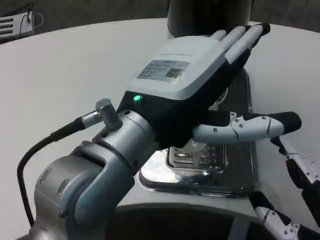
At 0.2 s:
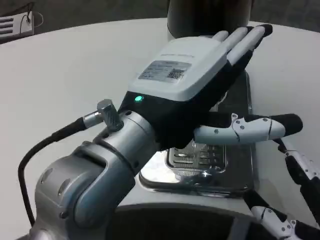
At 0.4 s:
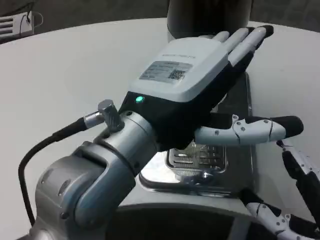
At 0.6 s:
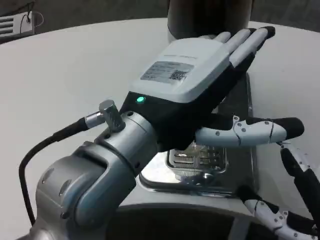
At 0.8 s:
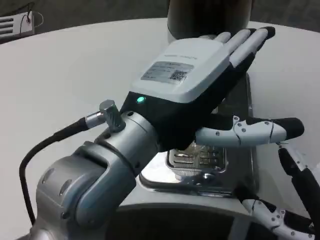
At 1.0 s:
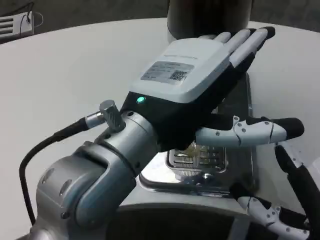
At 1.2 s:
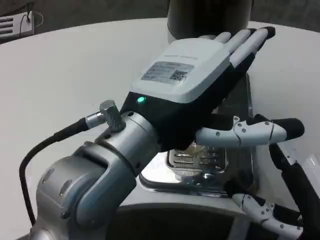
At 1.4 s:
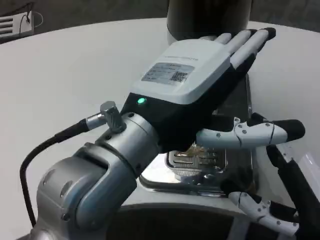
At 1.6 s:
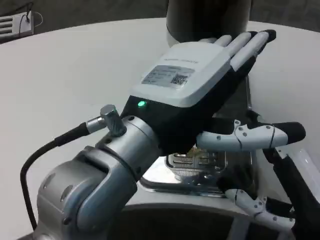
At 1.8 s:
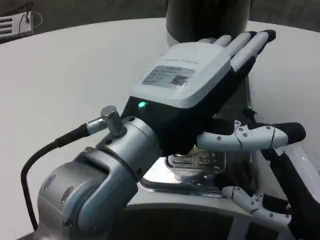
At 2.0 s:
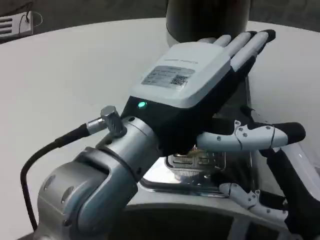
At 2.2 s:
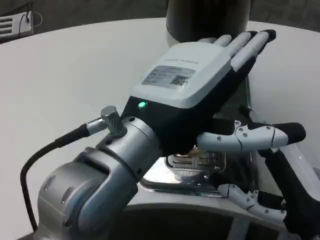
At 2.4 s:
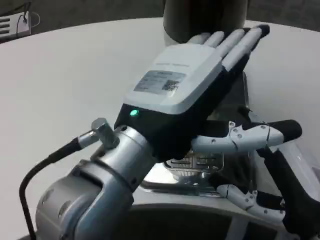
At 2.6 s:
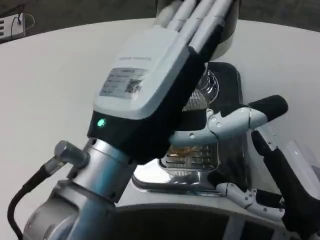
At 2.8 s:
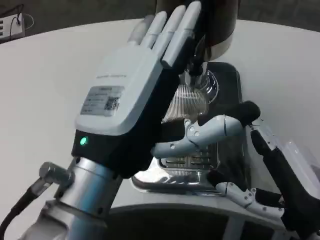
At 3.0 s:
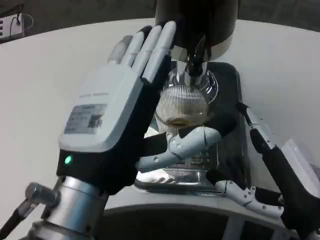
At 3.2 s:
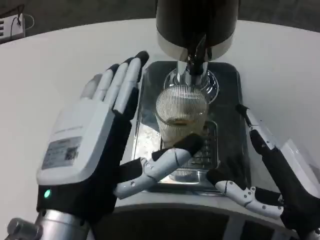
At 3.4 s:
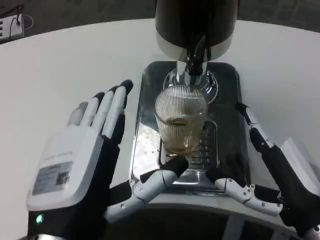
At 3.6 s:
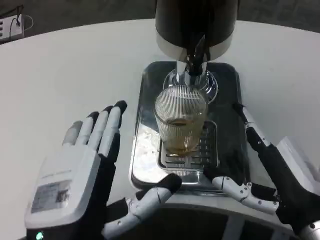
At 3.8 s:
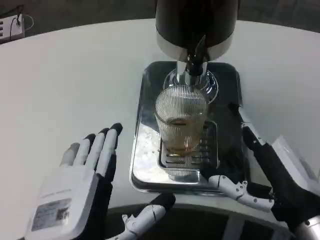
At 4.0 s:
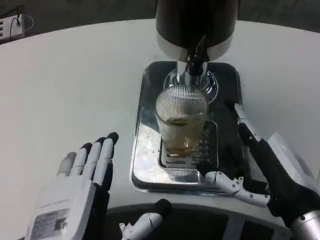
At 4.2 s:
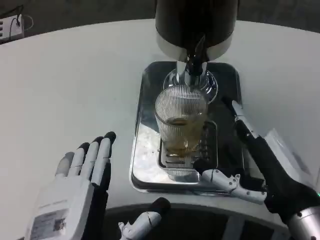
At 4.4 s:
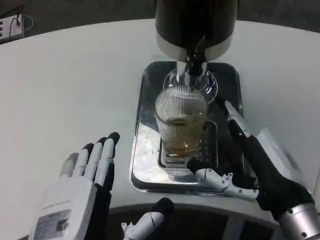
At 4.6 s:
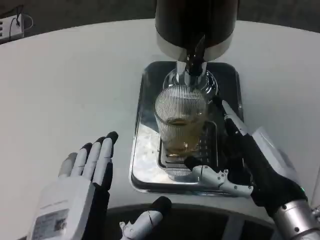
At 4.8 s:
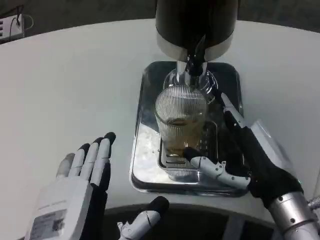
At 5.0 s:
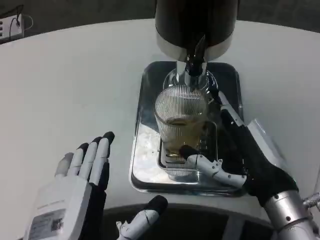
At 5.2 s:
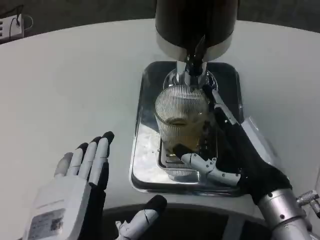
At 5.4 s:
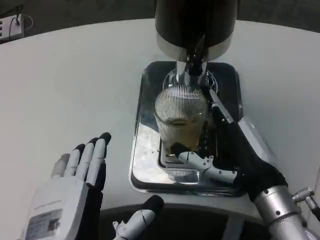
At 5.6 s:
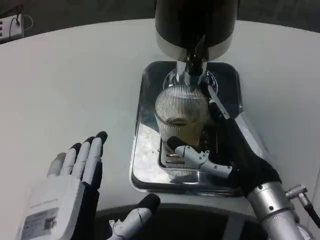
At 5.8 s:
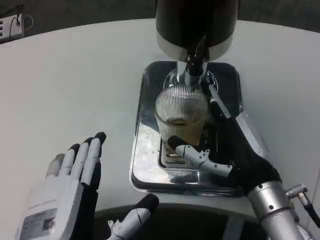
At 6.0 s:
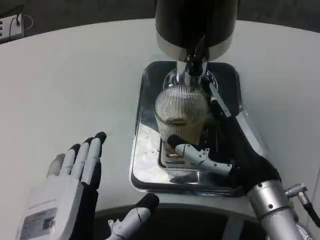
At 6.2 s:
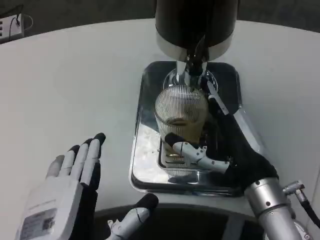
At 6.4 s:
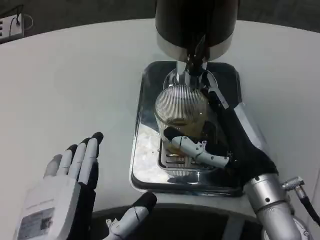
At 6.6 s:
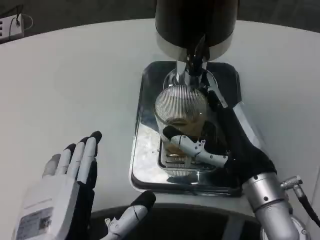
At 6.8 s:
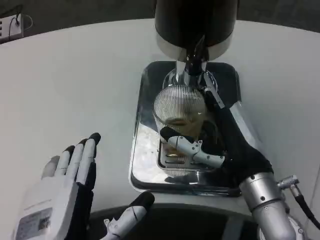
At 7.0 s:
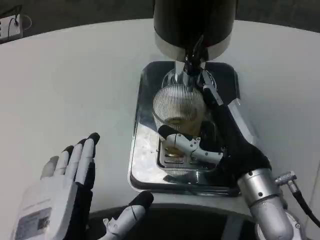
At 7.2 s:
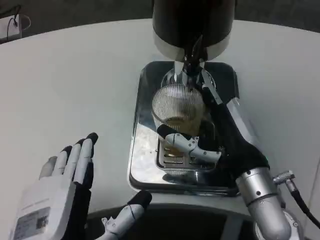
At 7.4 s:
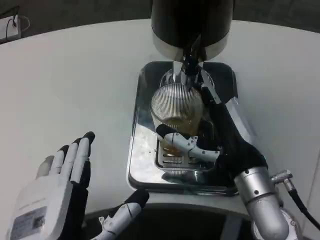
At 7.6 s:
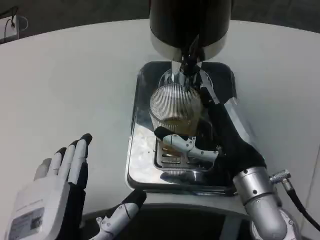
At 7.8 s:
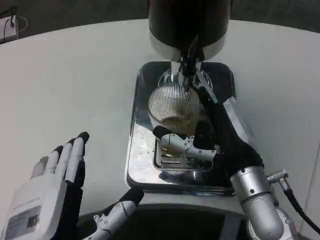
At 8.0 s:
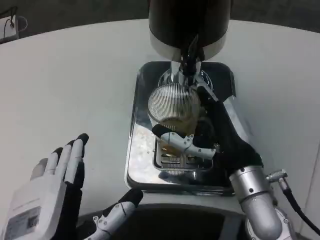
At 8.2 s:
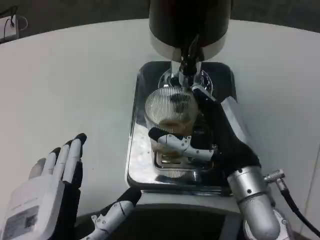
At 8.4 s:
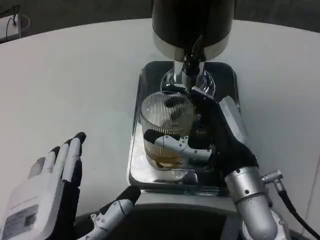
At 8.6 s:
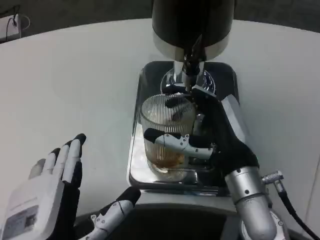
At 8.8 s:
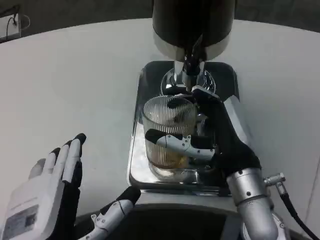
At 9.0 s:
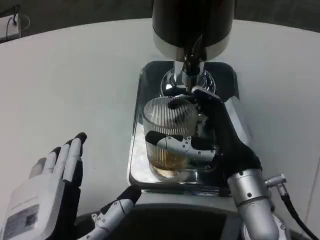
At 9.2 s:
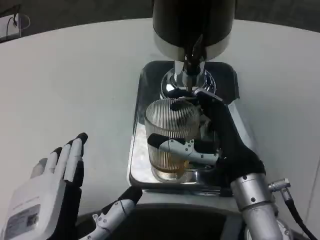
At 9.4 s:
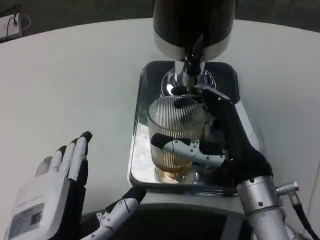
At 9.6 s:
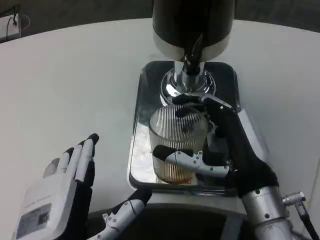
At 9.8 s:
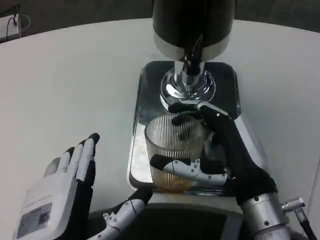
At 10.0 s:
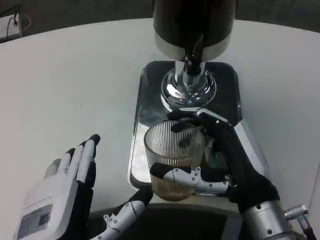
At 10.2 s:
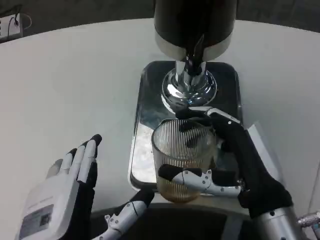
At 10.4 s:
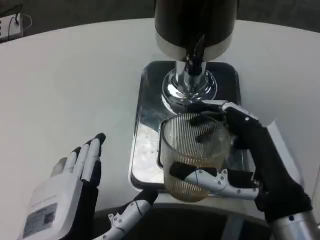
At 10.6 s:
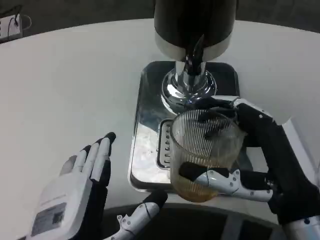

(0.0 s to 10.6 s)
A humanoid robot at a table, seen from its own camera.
Task of the whole recording: Grasp the cup under the faucet to collect the drink, then remove the cup.
0.0 s - 1.6 s: The right hand ends up some 5 cm from where it was.
1.6 s - 3.0 s: The left hand goes roughly 5 cm downward.
3.0 s - 4.6 s: The left hand shifts about 10 cm downward. The right hand changes place by roughly 5 cm.
4.6 s - 6.0 s: The hands make only small movements.
7.6 s - 9.0 s: There are only small adjustments of the hands.
9.0 s - 10.6 s: The right hand is displaced backward by about 10 cm.

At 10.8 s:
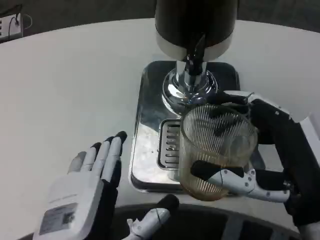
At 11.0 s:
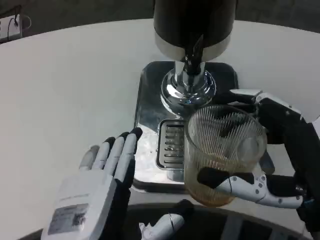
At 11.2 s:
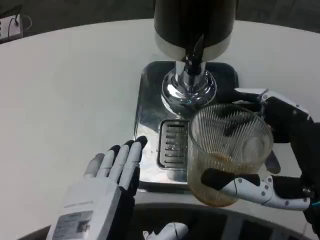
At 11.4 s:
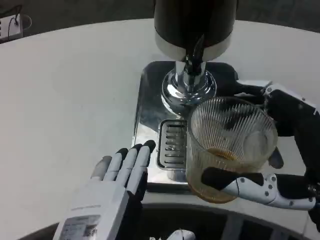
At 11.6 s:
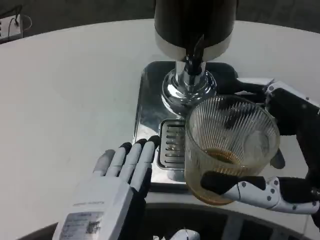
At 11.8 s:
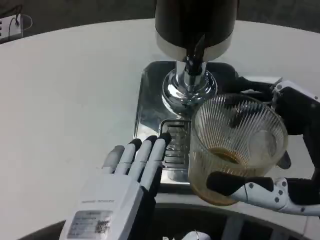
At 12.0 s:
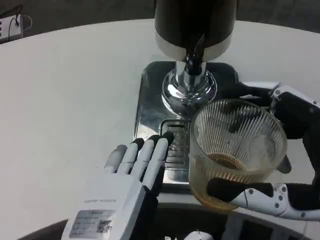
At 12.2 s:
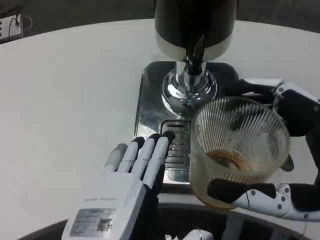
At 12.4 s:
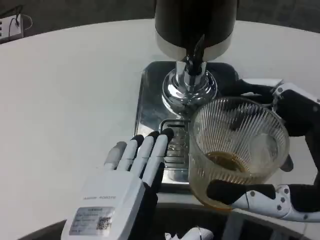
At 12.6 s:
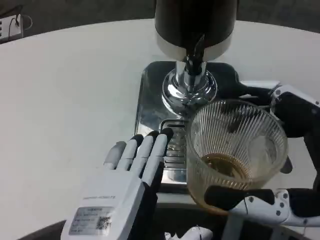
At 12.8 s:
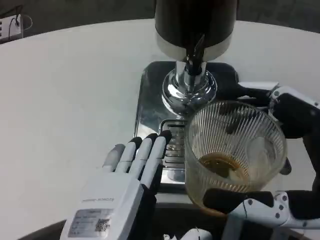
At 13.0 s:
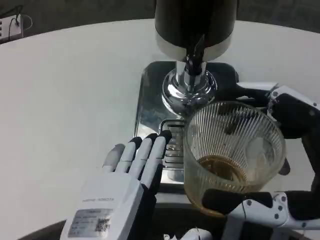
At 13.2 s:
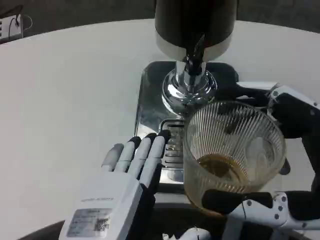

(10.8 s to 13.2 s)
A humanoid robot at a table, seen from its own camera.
Task of the whole recording: Grasp the cup under the faucet to collect the drink, then remove the cup.
12.0 s - 13.2 s: Both hands stay about where they are.

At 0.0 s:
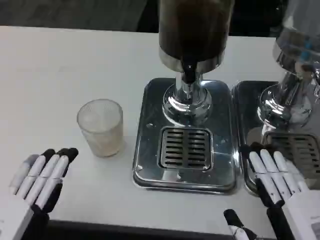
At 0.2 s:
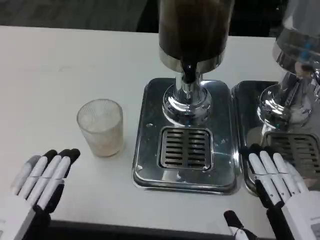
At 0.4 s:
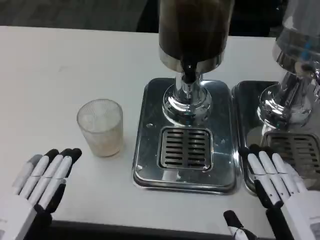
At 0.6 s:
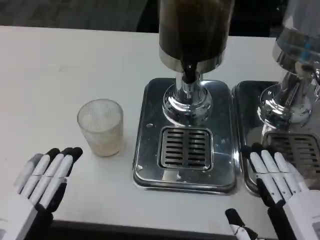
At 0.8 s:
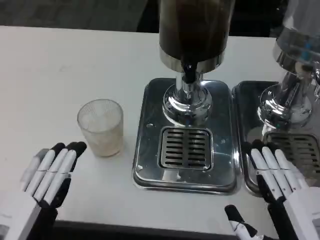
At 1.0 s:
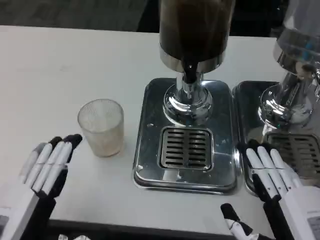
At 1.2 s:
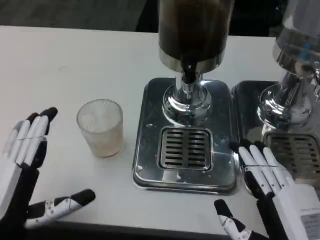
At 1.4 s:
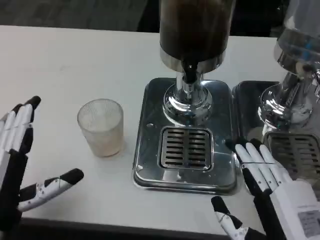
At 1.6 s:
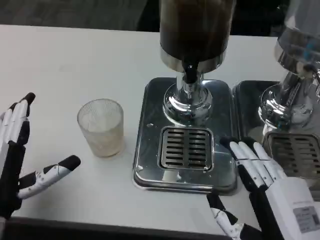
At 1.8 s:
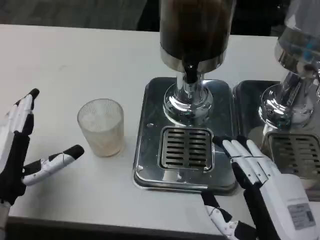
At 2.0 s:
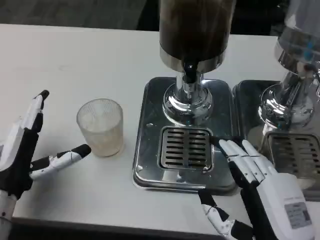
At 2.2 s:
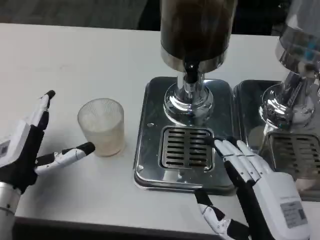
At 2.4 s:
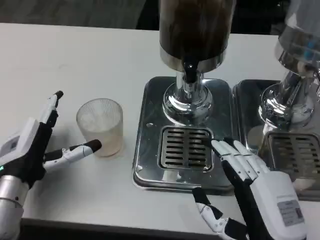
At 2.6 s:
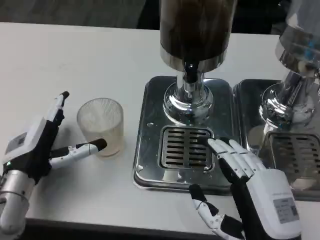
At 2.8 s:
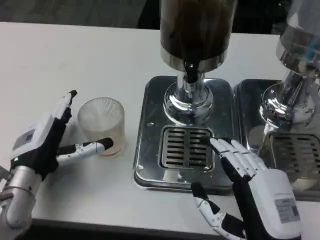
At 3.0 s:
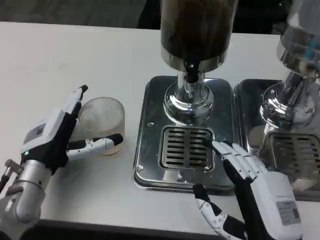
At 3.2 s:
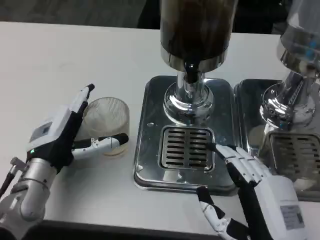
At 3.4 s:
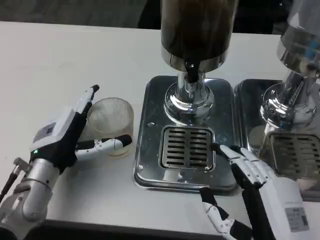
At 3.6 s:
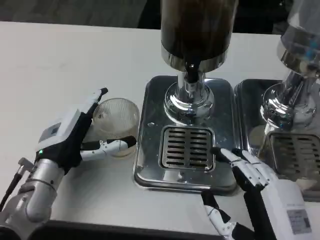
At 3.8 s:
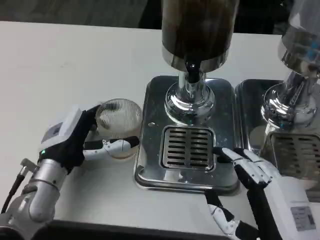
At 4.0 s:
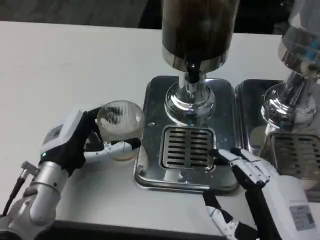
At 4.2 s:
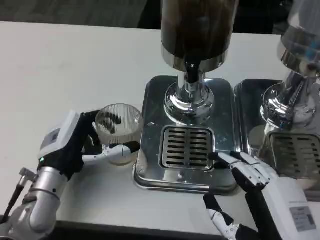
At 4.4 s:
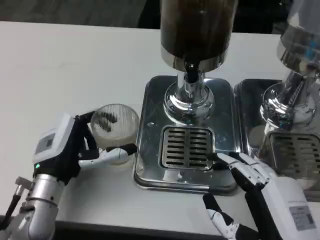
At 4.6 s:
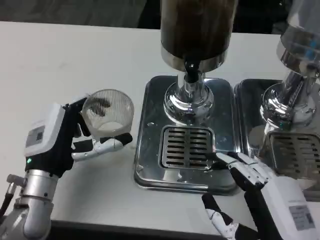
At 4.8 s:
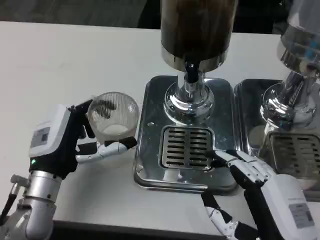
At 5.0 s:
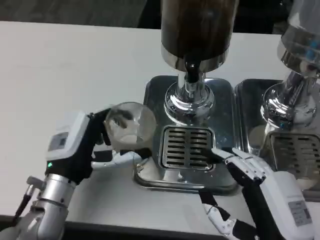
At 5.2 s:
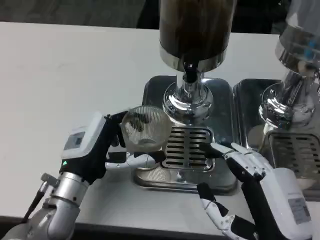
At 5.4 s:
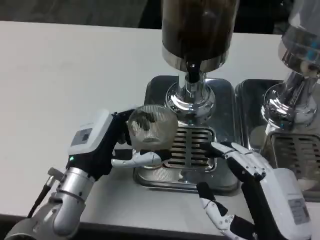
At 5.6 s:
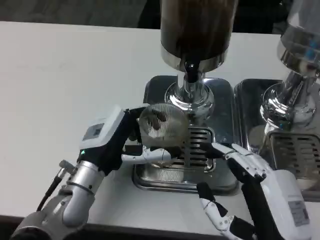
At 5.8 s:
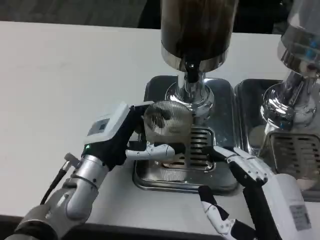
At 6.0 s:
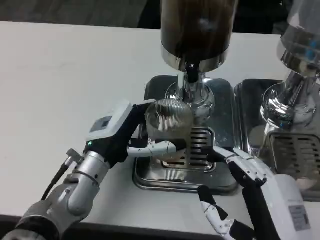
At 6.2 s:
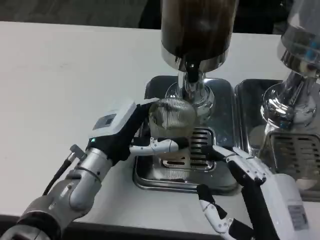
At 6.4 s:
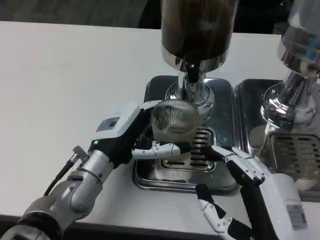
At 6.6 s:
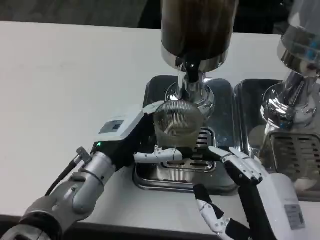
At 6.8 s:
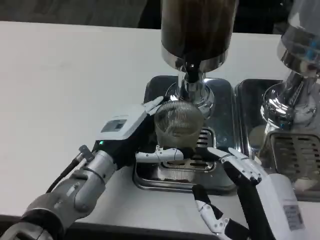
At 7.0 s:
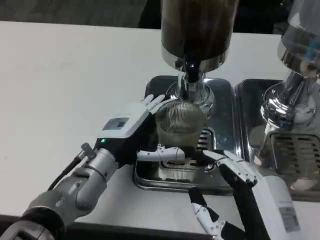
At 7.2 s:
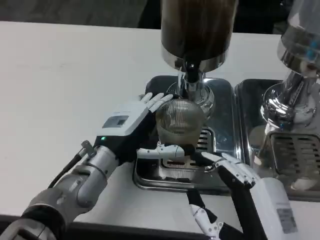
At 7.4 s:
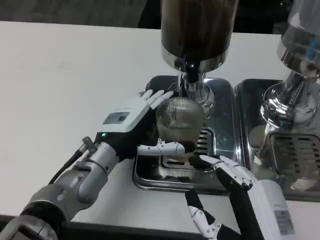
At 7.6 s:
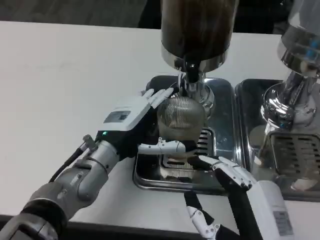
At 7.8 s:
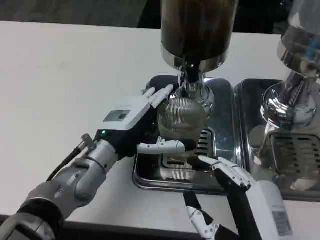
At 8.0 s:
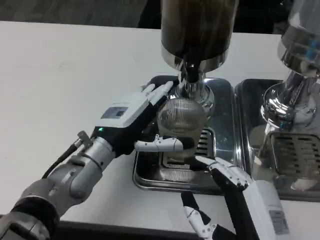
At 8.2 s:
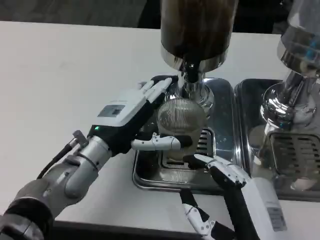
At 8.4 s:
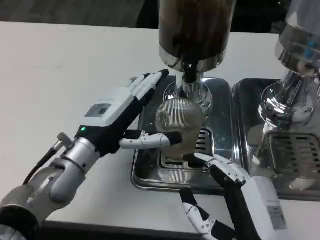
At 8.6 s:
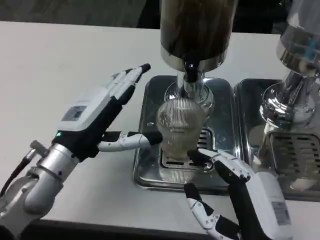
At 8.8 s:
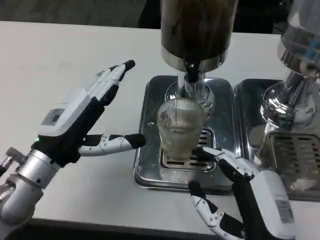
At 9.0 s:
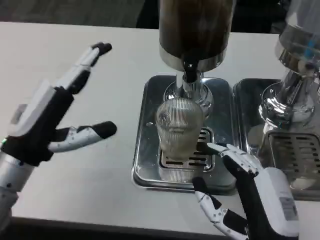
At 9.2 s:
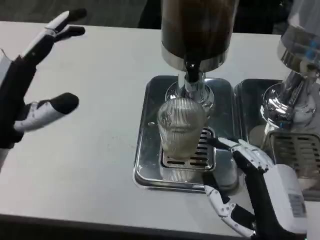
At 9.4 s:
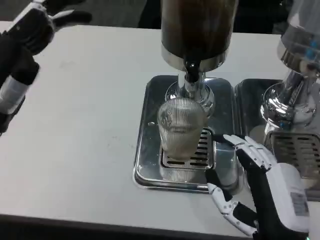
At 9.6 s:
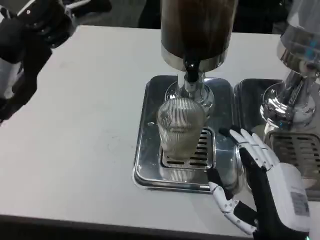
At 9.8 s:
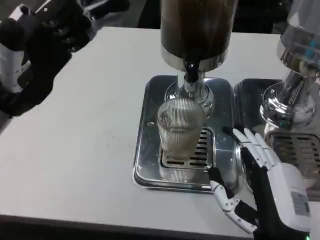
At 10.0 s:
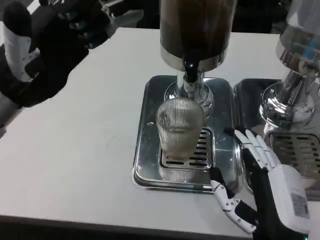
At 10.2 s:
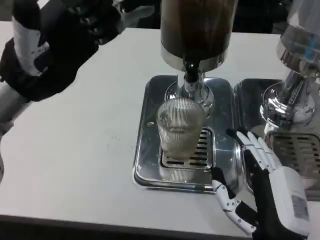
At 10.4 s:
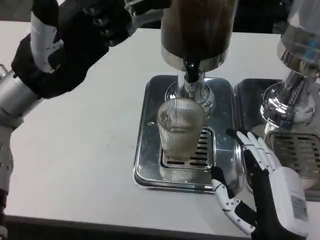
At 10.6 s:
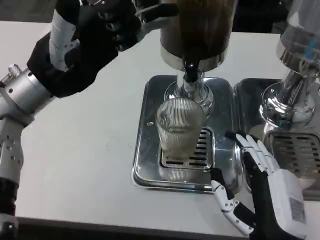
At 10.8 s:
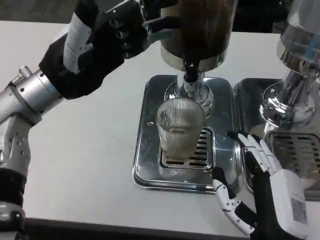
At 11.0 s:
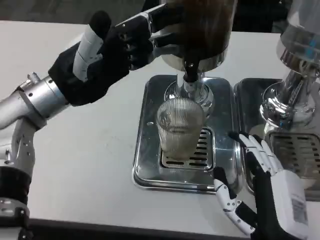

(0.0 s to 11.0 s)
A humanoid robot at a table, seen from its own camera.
Task of the whole recording: Grasp the cup under the faucet to collect the drink, then remove the cup.
0.0 s - 1.6 s: The left hand moves forward, approximately 10 cm.
1.6 s - 3.2 s: The left hand travels forward by approximately 10 cm.
4.8 s - 6.2 s: The left hand heads to the right, covering some 5 cm.
7.8 s - 9.4 s: The left hand heads to the left and upward, covering some 15 cm.
9.4 s - 11.0 s: The left hand is displaced forward by approximately 10 cm.
